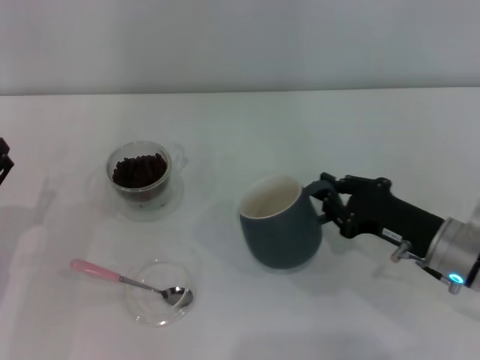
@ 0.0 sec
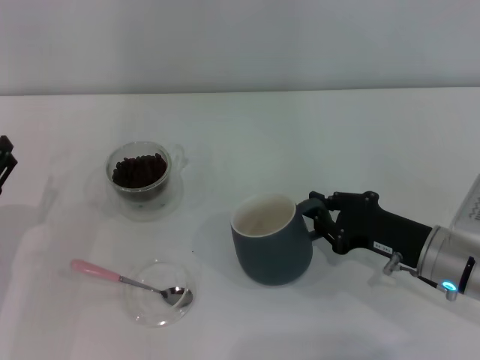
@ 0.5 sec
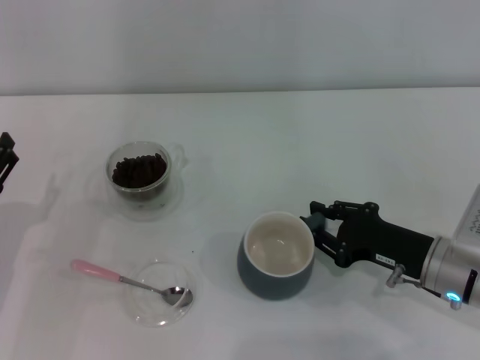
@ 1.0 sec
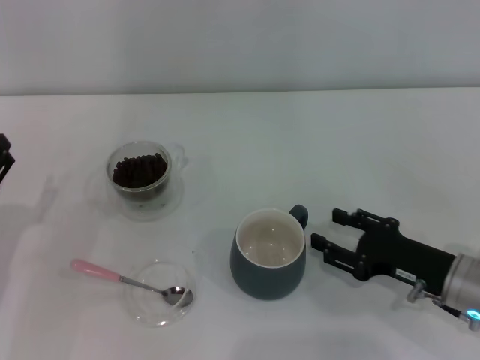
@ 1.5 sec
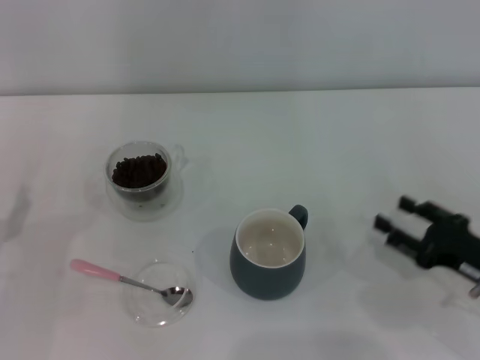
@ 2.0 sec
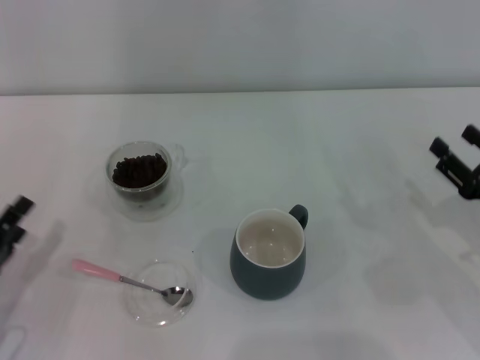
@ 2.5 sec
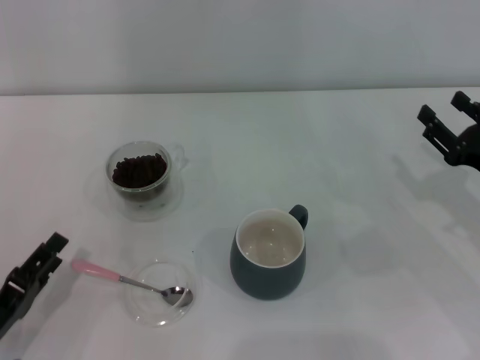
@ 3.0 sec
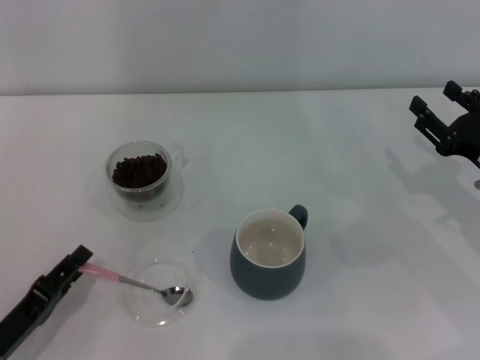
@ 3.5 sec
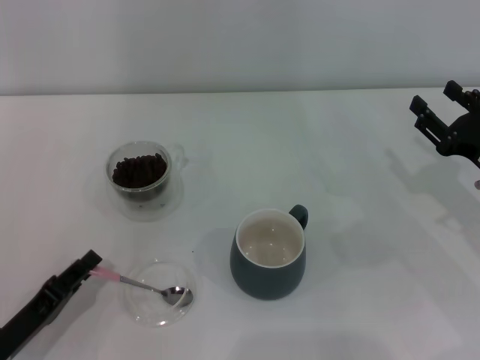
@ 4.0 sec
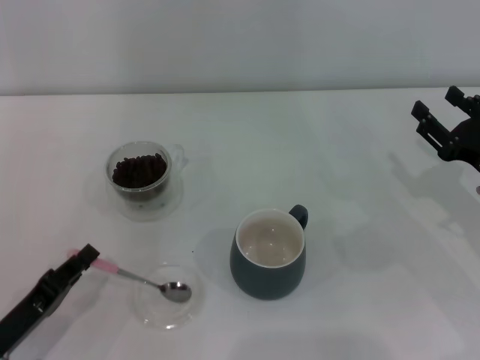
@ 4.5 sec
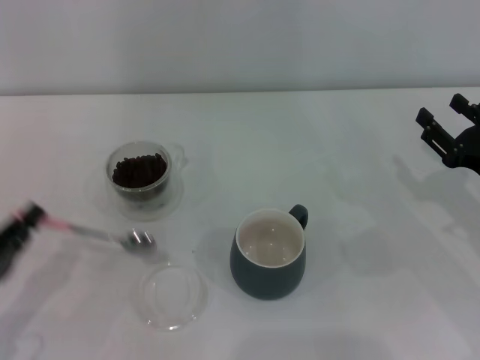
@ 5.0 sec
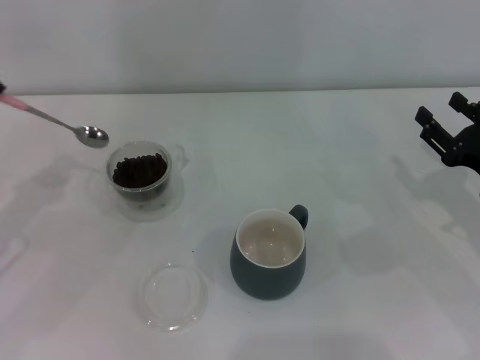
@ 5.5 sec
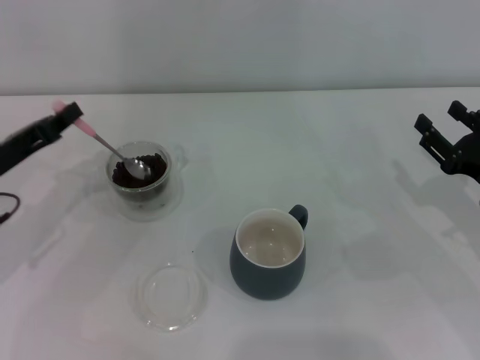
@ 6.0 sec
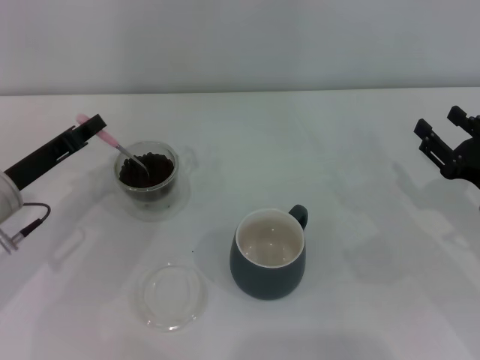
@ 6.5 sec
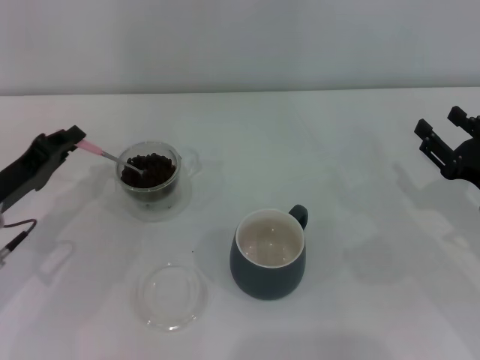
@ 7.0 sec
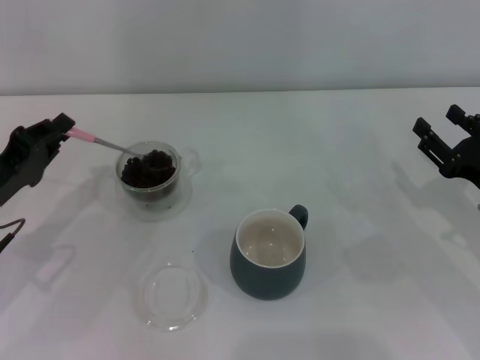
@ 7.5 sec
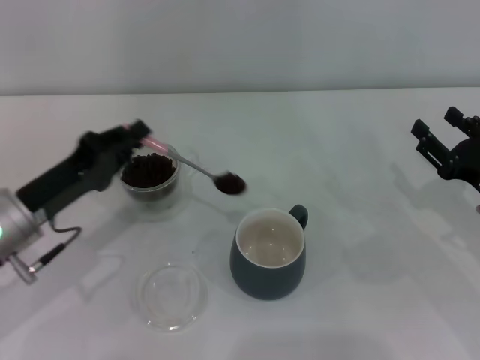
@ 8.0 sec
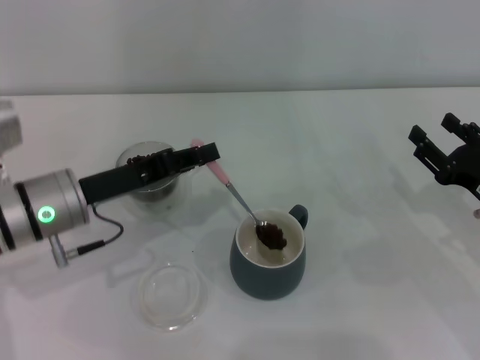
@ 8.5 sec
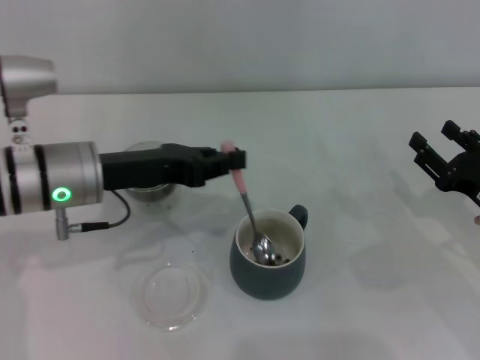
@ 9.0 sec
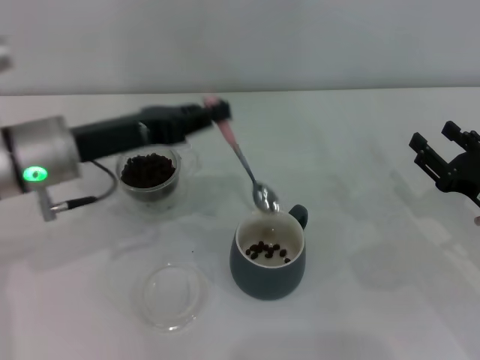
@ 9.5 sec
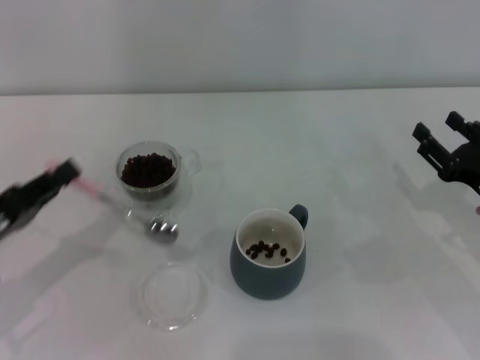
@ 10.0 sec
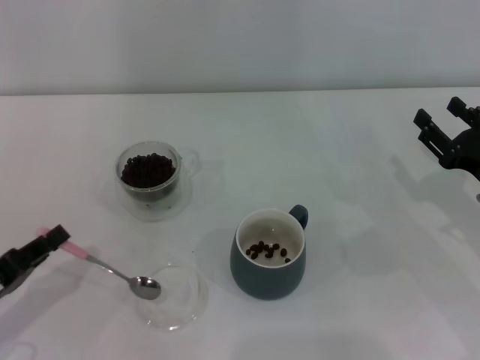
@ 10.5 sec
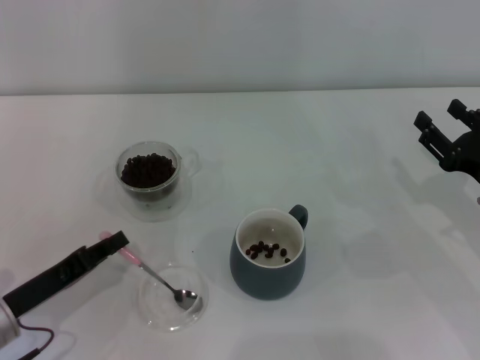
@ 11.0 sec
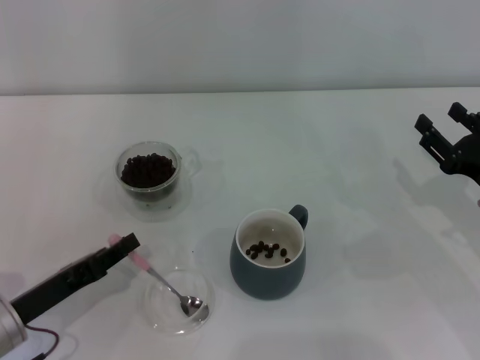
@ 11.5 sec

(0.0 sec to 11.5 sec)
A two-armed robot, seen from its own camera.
Task of the whole recording: Use a pink spoon to take out the coffee beans from the glass and pour them into the gray cup.
Step, 2.0 sec - 4.5 sec: Pick up the spoon with the right gripper.
0.0 sec - 2.0 sec: The right gripper goes roughly 10 cm to the right and backward, and opens.
2.0 sec - 4.0 sec: The right gripper is displaced forward by roughly 5 cm. The left gripper is displaced backward by about 5 cm, and closes its fingers.
4.0 sec - 6.0 sec: The left gripper travels forward and upward by about 20 cm, and closes its fingers.
7.5 sec - 9.5 sec: The left gripper is displaced to the right and upward by approximately 10 cm.
9.5 sec - 11.5 sec: The left gripper travels downward, backward and to the left by some 20 cm.

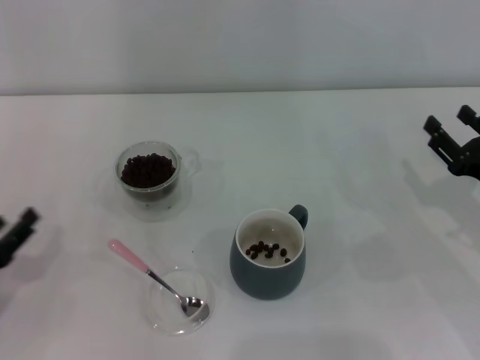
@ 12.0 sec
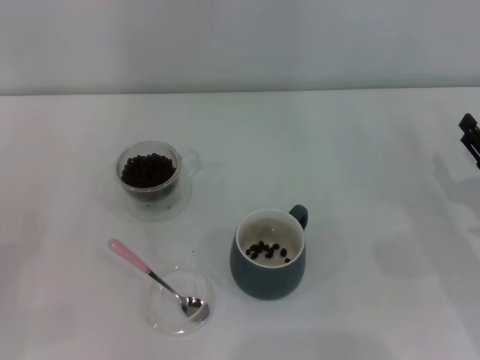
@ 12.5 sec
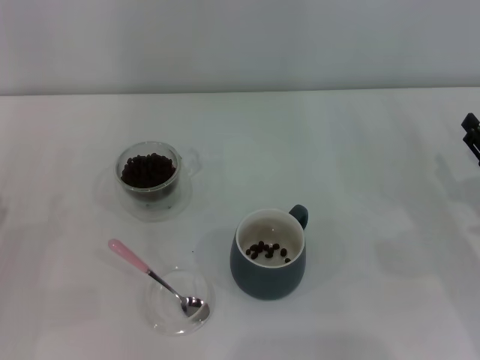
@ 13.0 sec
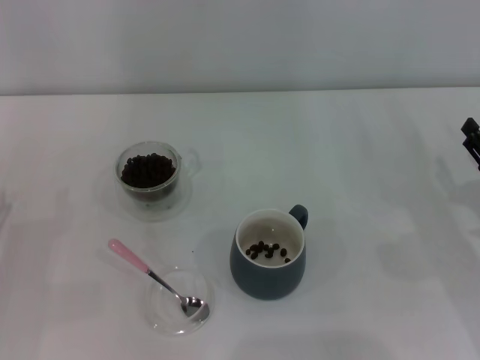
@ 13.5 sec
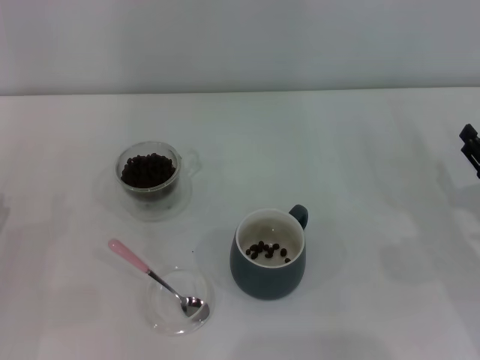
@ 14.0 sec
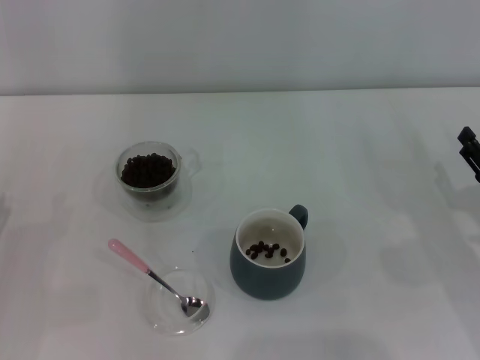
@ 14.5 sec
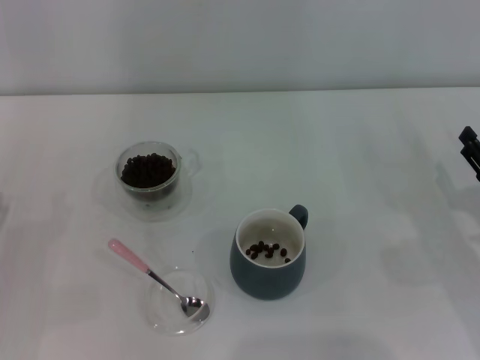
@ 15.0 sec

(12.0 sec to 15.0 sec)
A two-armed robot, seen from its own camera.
Task of the whole recording: Use a pink spoon to take out the coffee beans from the glass and pour them into the gray cup.
12.0 sec - 13.5 sec: The left gripper opens up.
13.5 sec - 15.0 sec: The two grippers keep their place.
